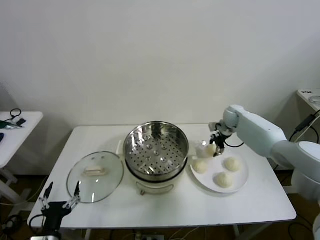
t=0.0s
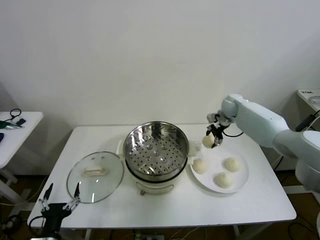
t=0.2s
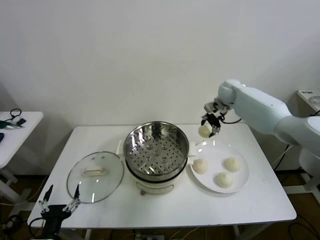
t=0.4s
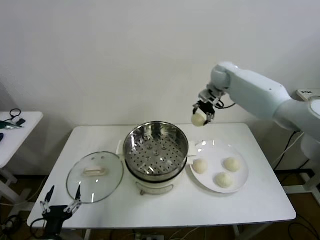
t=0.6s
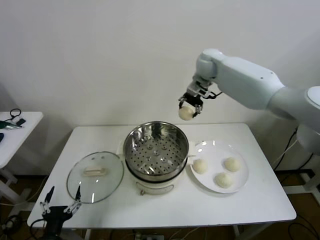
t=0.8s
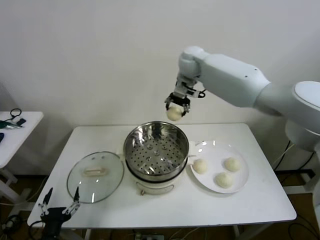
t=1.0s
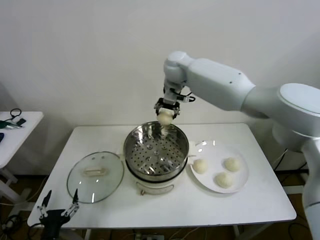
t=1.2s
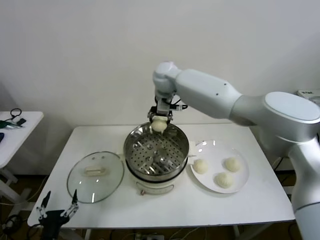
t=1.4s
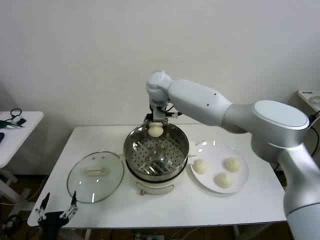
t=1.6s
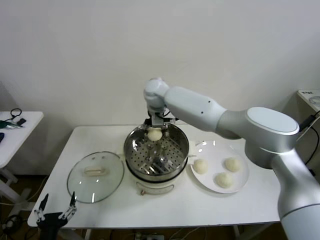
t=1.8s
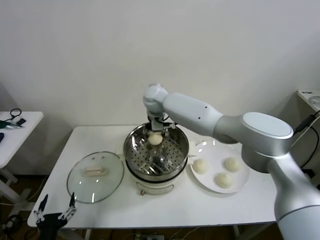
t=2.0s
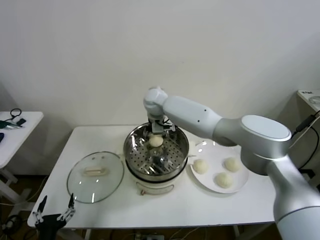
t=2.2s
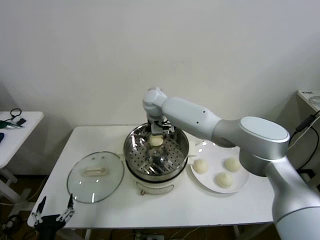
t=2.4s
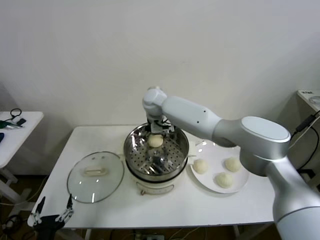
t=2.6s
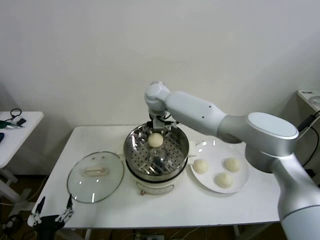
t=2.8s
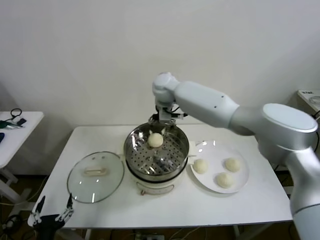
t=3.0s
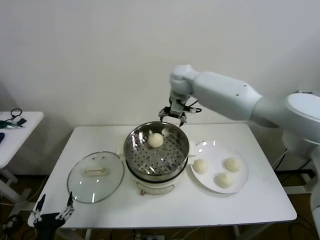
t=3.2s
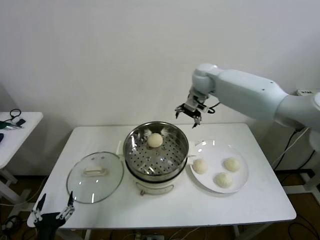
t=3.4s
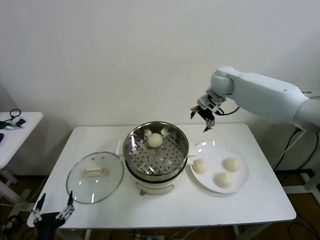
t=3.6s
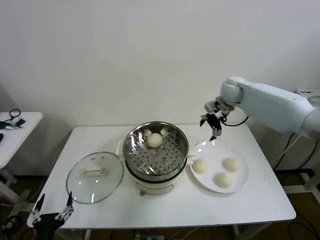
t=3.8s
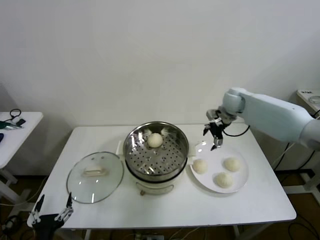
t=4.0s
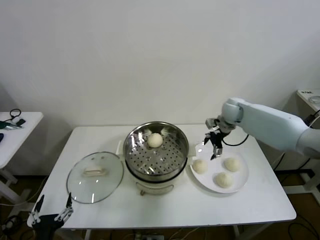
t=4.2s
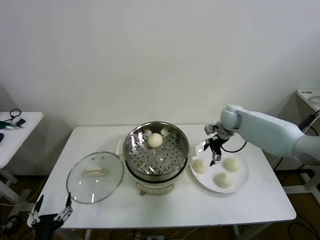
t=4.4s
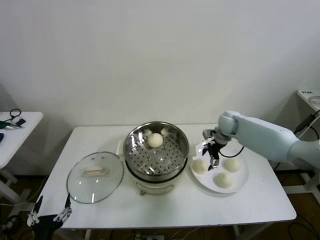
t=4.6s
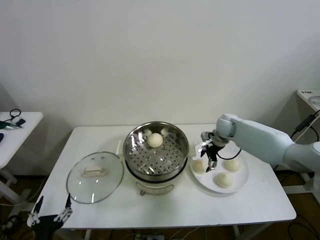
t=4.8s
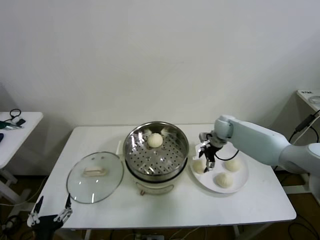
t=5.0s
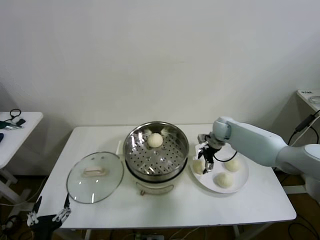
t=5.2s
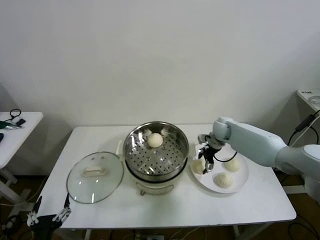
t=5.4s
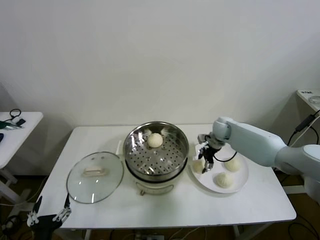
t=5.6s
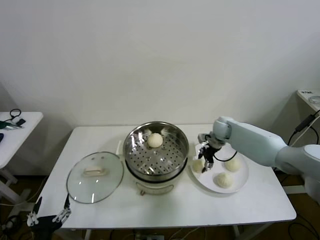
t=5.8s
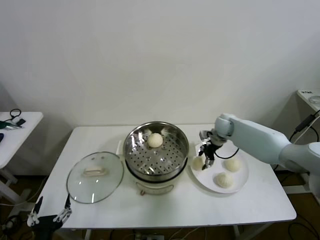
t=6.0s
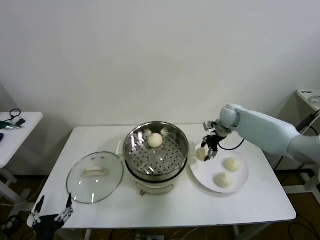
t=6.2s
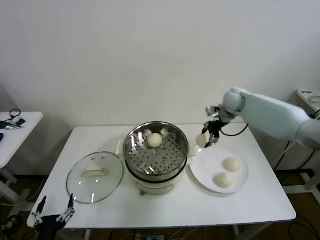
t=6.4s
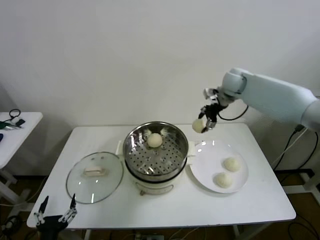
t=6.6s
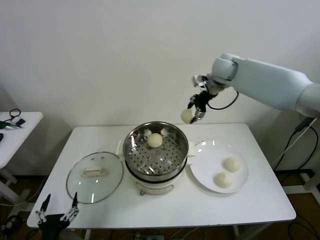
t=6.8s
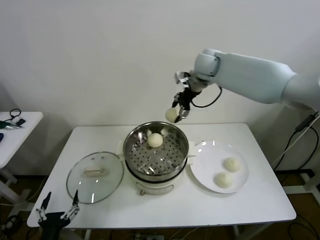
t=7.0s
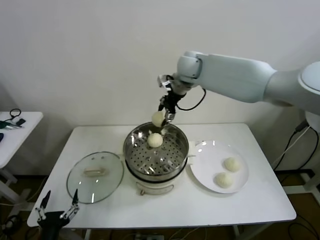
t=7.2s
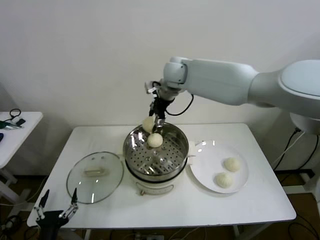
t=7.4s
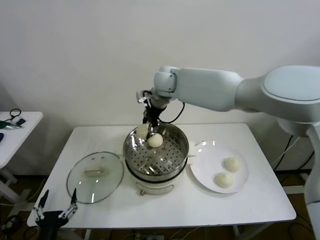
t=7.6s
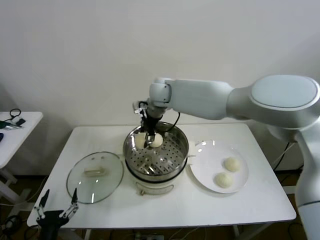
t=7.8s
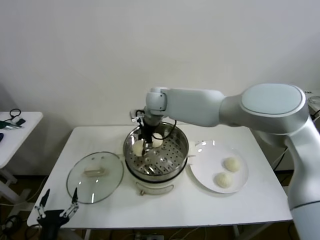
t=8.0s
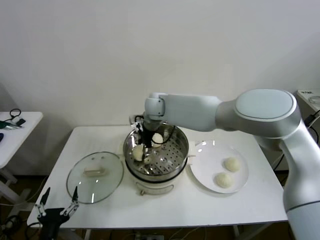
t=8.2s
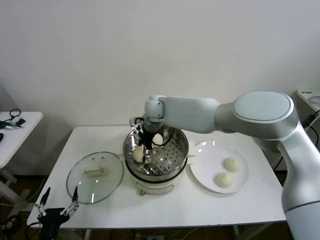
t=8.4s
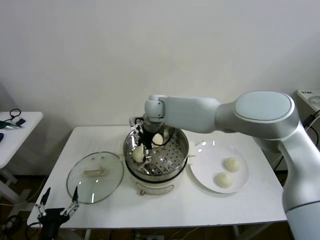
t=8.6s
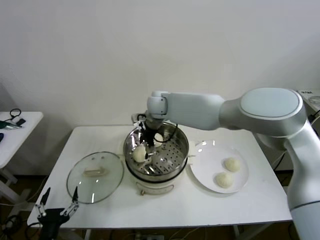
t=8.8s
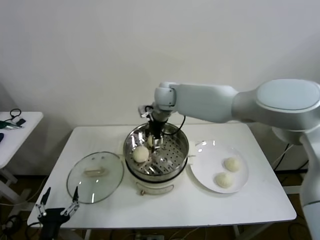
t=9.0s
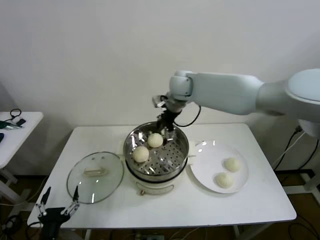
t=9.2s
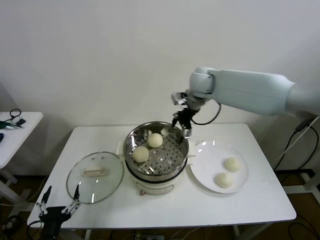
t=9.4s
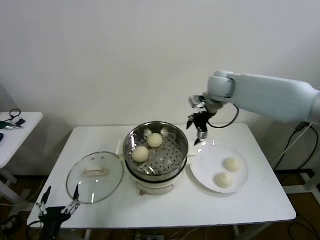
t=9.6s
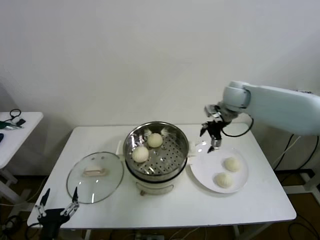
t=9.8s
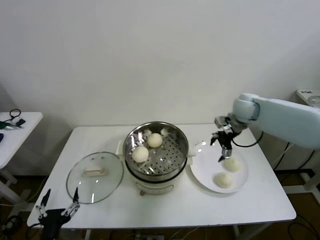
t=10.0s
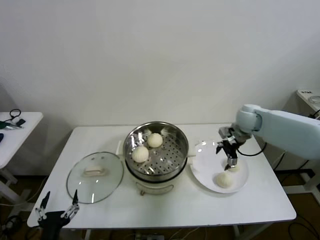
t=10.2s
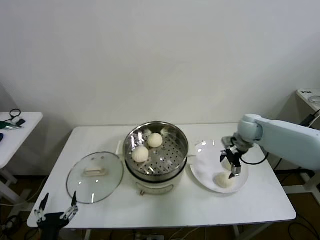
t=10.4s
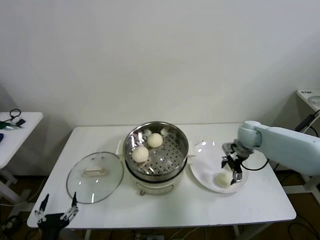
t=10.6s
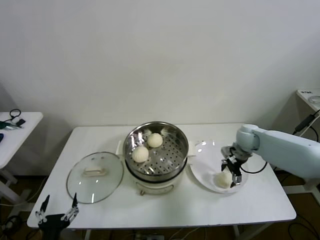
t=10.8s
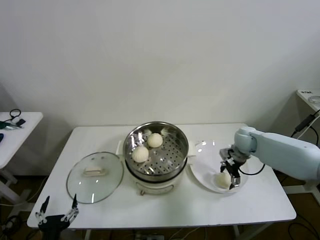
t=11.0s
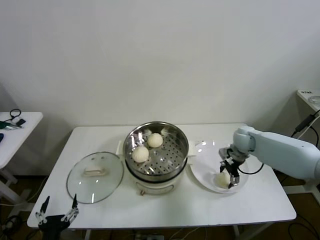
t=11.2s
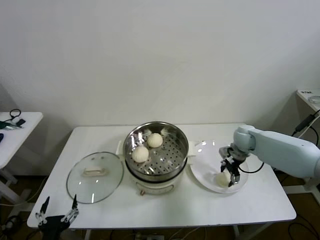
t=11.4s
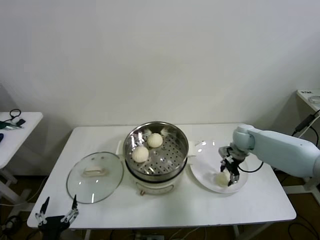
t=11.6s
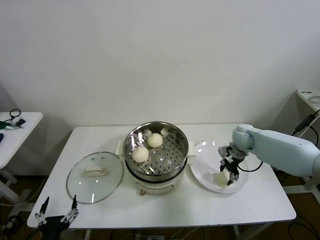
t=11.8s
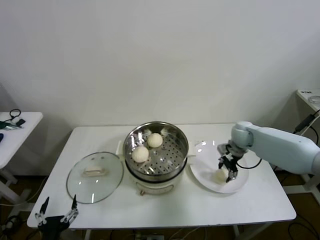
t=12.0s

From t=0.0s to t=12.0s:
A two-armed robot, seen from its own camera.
Step, from t=0.0s to t=2.2s: Place the baozi on the steamer with right gripper.
Step, from t=2.4s to t=5.6s: Grasp the baozi in the plate with right gripper.
Step, from t=5.8s to t=8.6s: Place the baozi on the steamer with right gripper.
Step, from t=8.8s to t=11.6s: Grasp the baozi in the plate with right gripper.
From t=0.0s to t=1.6s: The right gripper heads to the left and upward, covering approximately 35 cm.
From t=1.6s to t=3.0s: The right gripper moves roughly 5 cm, and opens its fingers.
From t=3.0s to t=4.4s: The right gripper travels to the right and downward by roughly 30 cm.
From t=4.4s to t=6.0s: The right gripper closes its fingers.
From t=6.0s to t=7.6s: The right gripper is displaced to the left and upward by some 30 cm.
From t=7.6s to t=9.0s: The right gripper goes downward and returns, some 10 cm each way, and opens its fingers.
From t=9.0s to t=10.4s: The right gripper travels to the right and downward by roughly 35 cm.
From t=10.4s to t=12.0s: The right gripper closes its fingers.

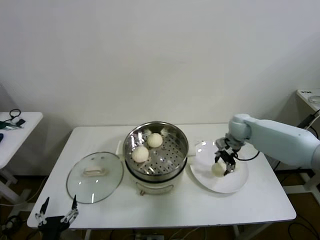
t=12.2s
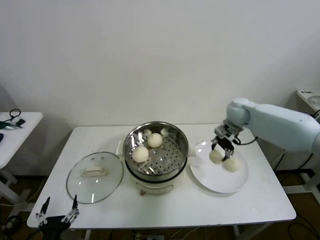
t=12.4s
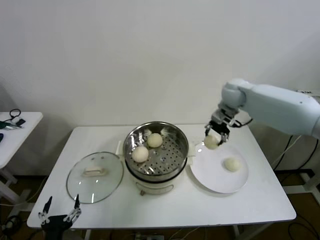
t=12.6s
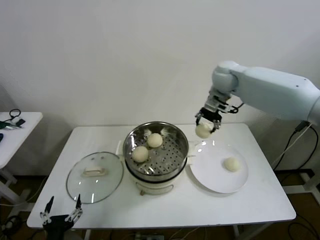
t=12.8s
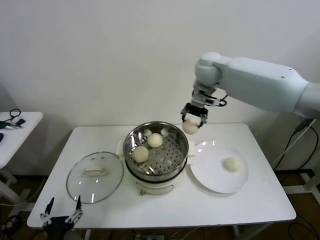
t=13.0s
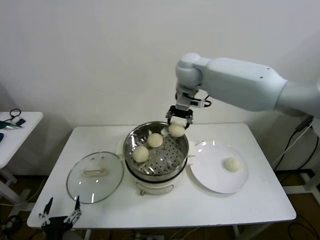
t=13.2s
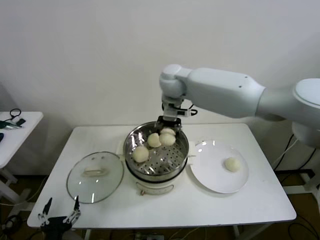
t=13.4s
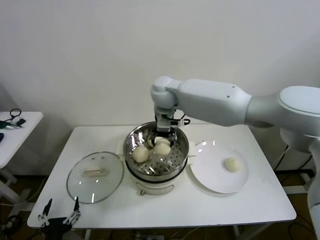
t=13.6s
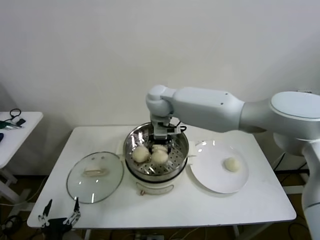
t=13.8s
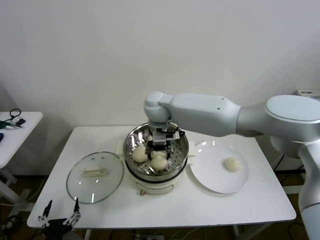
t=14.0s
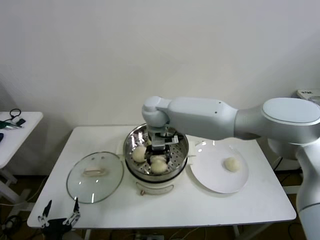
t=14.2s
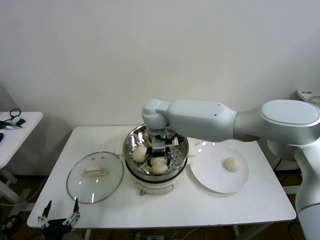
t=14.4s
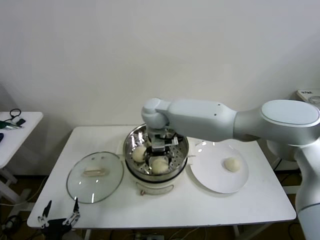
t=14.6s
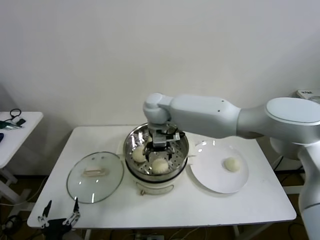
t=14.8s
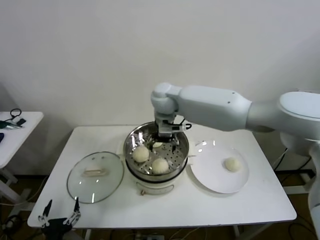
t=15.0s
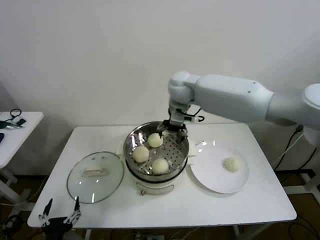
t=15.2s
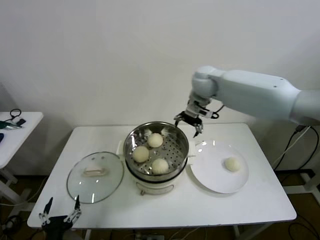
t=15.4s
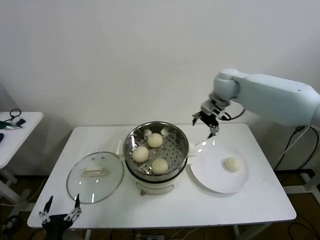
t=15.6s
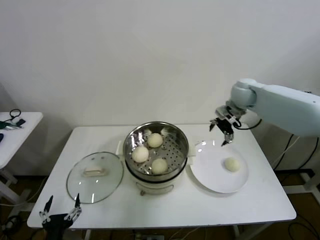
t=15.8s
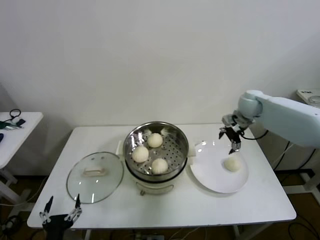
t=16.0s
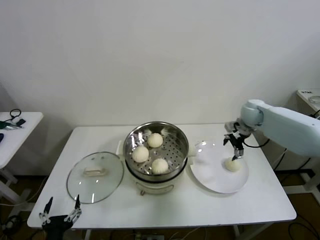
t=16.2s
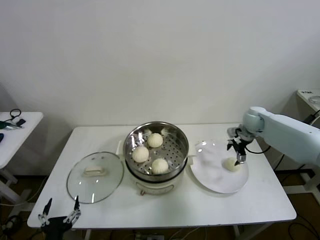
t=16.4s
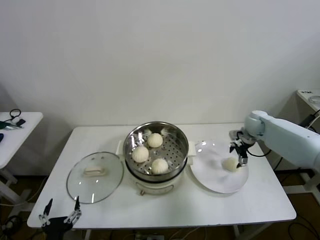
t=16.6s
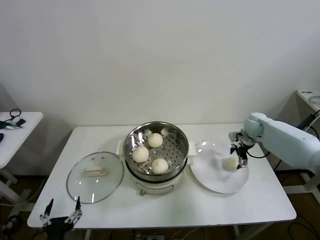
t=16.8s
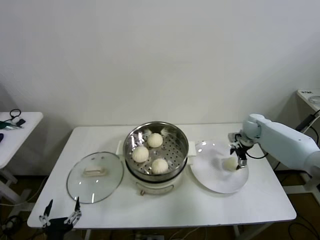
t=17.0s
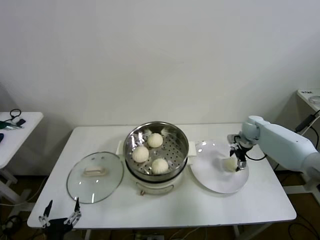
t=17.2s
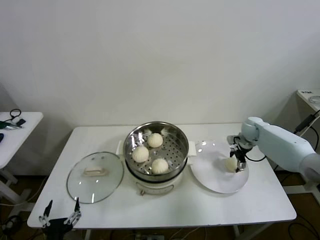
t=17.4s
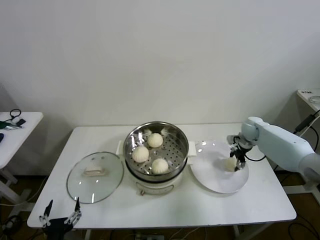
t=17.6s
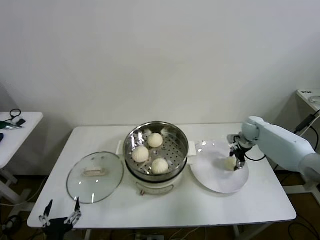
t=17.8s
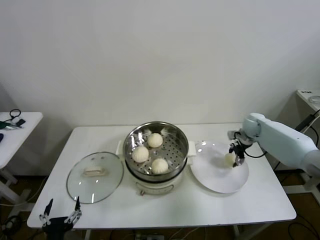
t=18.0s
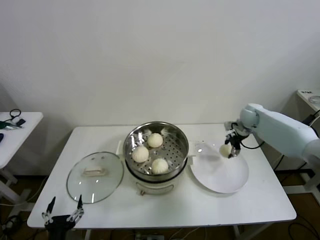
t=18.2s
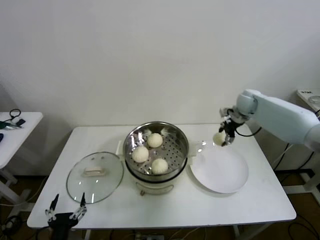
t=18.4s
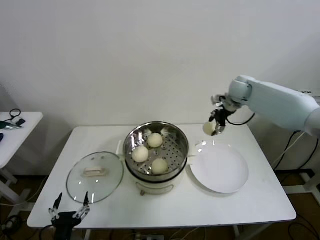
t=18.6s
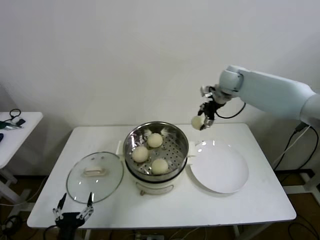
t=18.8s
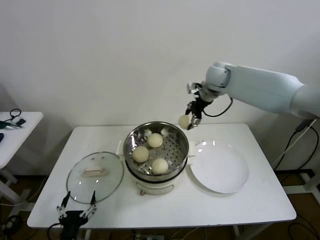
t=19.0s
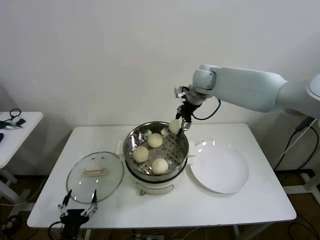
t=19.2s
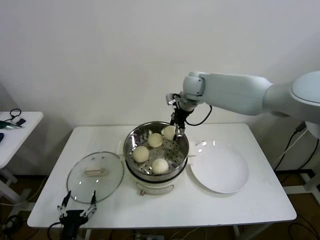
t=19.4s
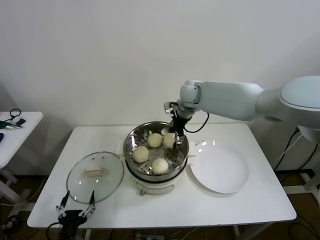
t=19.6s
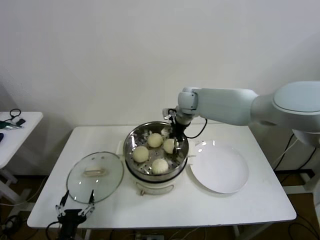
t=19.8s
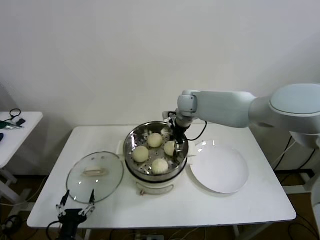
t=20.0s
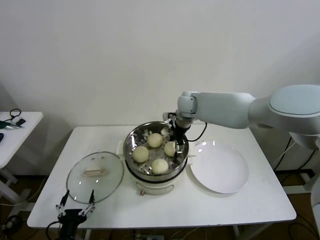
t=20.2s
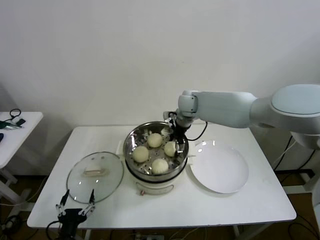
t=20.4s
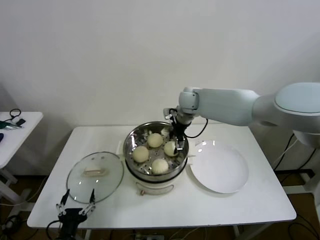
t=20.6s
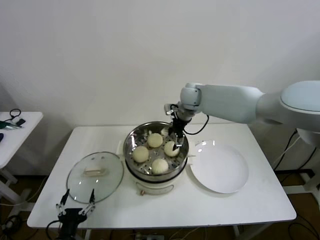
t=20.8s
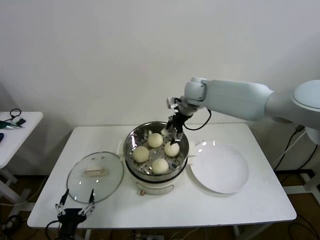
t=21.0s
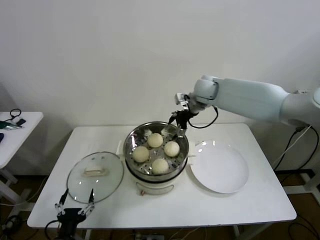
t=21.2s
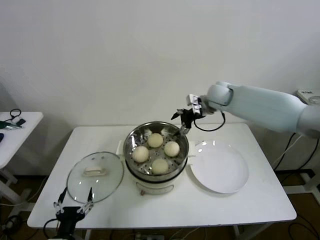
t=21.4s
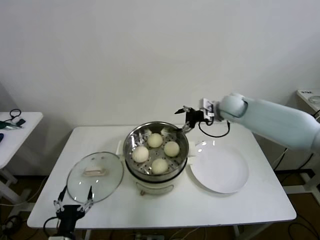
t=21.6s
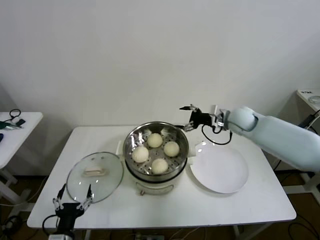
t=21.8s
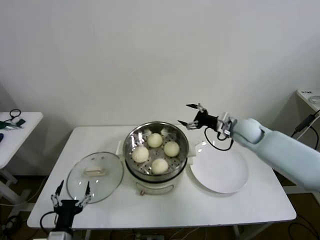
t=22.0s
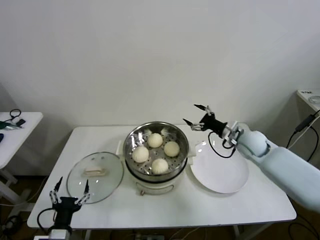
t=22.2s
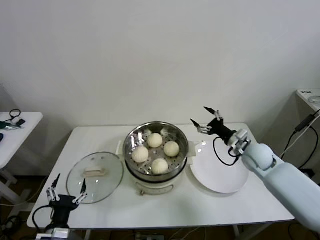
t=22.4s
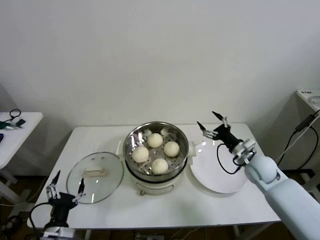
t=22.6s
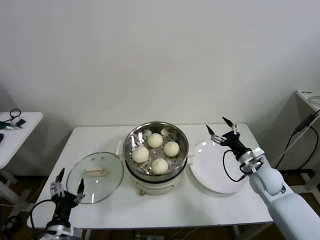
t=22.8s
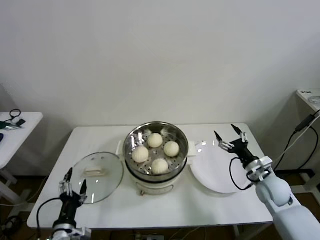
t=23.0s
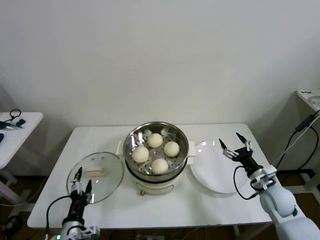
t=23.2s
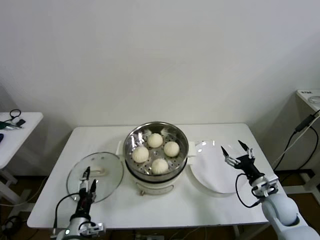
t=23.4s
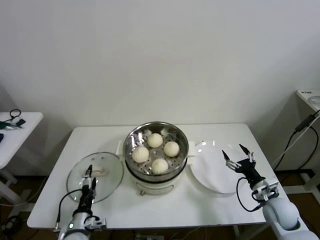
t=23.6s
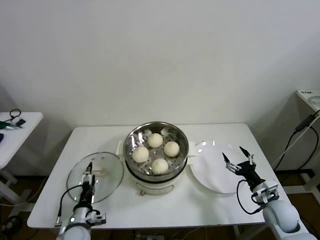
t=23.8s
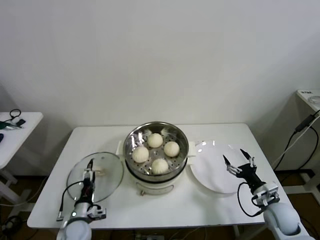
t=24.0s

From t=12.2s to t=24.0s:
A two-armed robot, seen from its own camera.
Step, from t=12.2s to t=14.4s: Place the baozi on the steamer with right gripper.
Step, from t=14.6s to t=17.6s: Grasp the baozi in the plate with right gripper.
Step, from t=17.8s to t=20.2s: Place the baozi on the steamer with right gripper.
From t=12.2s to t=13.6s: The right gripper goes roughly 35 cm to the left and upward.
From t=13.6s to t=15.2s: The right gripper shifts roughly 5 cm to the right, and opens.
From t=15.2s to t=16.6s: The right gripper heads to the right and downward, covering roughly 35 cm.
From t=16.6s to t=18.2s: The right gripper closes its fingers.
From t=18.2s to t=19.6s: The right gripper goes about 30 cm to the left and upward.
From t=19.6s to t=21.0s: The right gripper opens its fingers.
From t=21.0s to t=22.6s: The right gripper goes approximately 35 cm to the right, downward and backward.
From t=22.6s to t=24.0s: The right gripper goes approximately 15 cm backward and downward. Meanwhile the left gripper is displaced forward and downward by some 15 cm.
